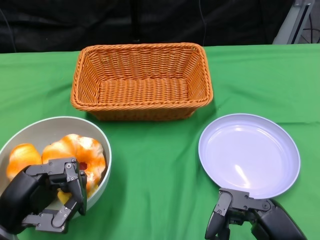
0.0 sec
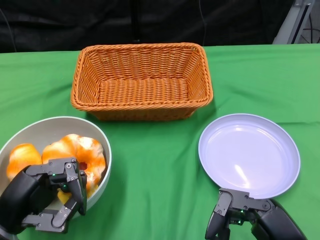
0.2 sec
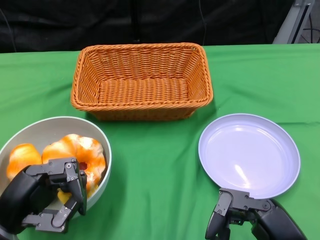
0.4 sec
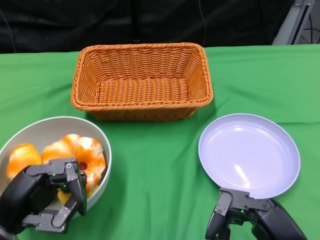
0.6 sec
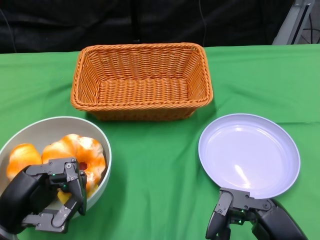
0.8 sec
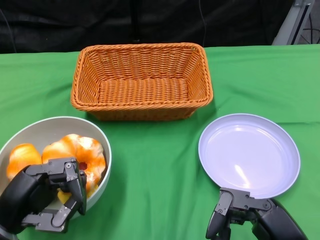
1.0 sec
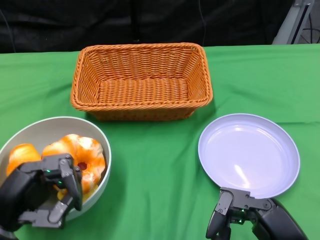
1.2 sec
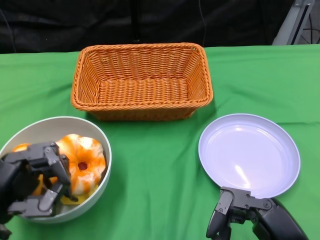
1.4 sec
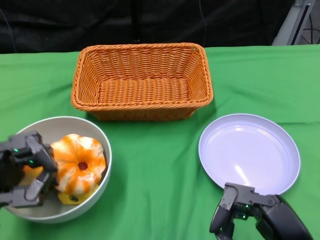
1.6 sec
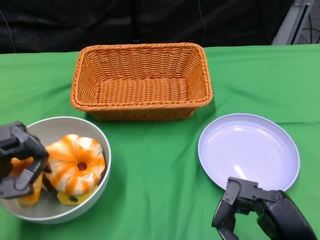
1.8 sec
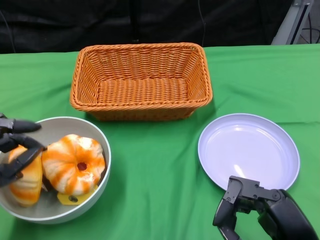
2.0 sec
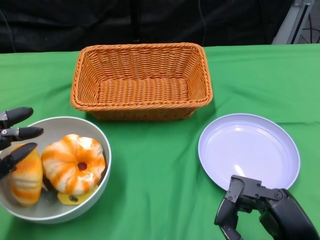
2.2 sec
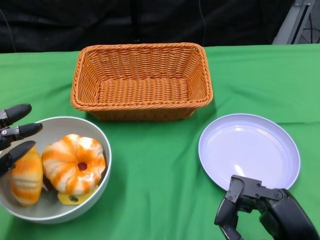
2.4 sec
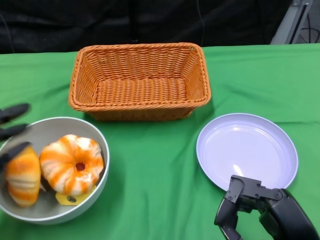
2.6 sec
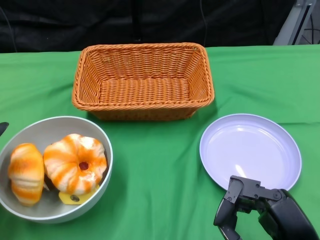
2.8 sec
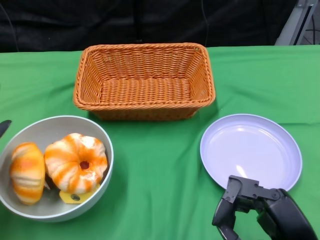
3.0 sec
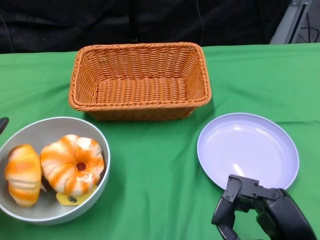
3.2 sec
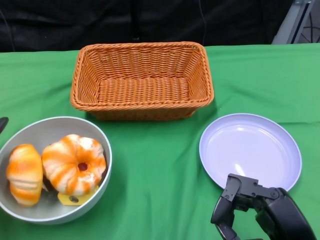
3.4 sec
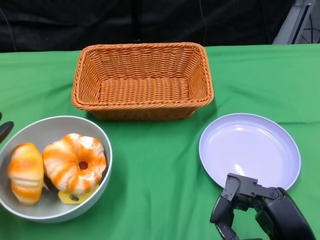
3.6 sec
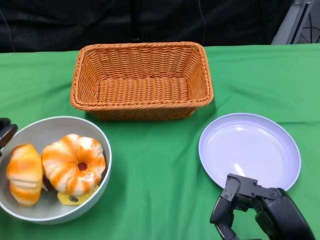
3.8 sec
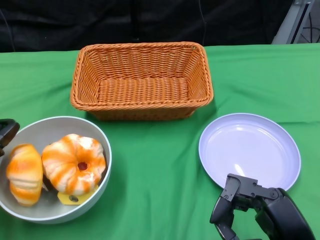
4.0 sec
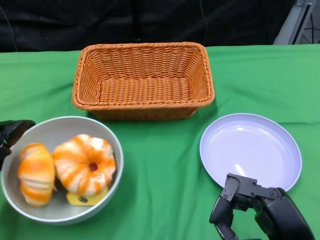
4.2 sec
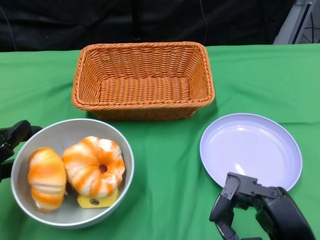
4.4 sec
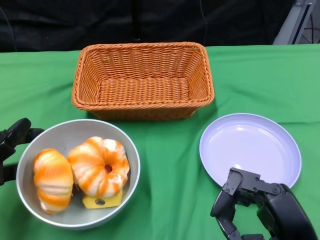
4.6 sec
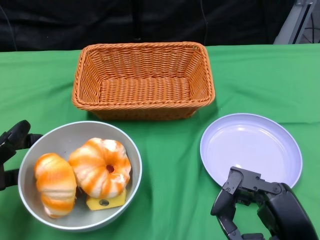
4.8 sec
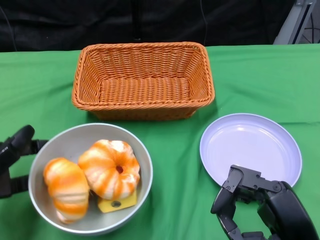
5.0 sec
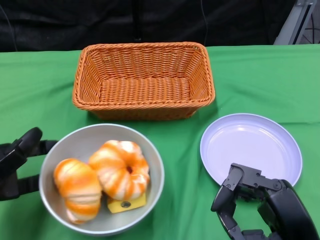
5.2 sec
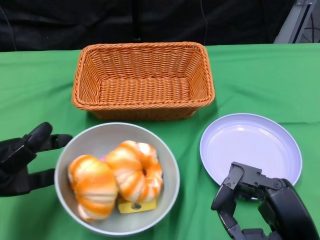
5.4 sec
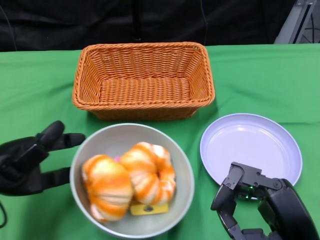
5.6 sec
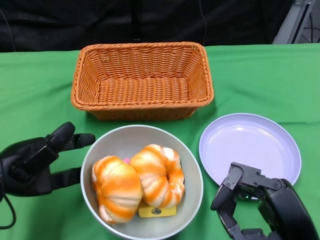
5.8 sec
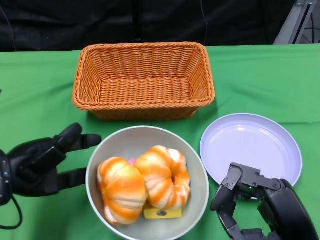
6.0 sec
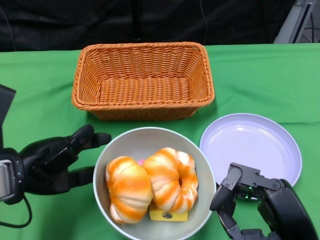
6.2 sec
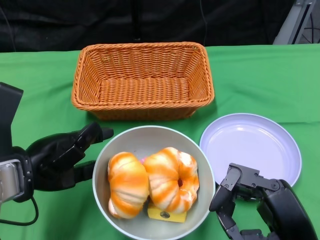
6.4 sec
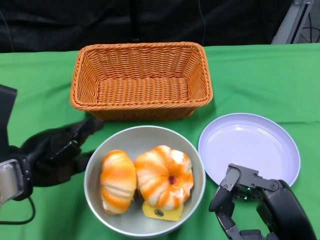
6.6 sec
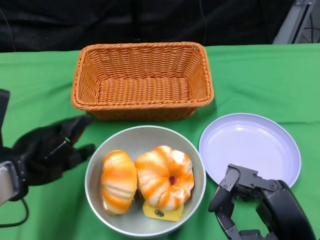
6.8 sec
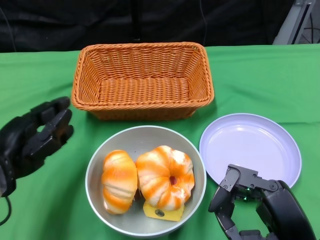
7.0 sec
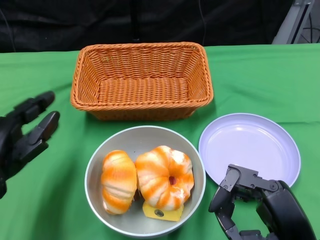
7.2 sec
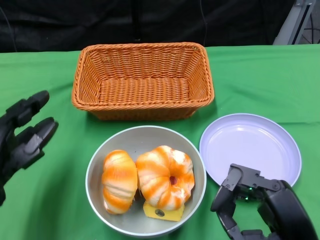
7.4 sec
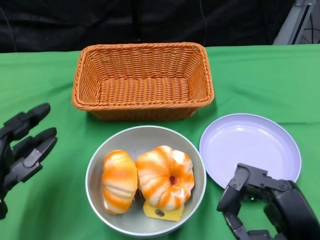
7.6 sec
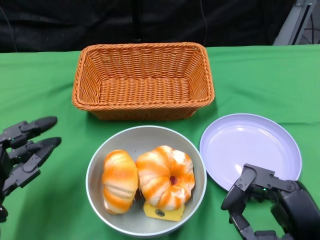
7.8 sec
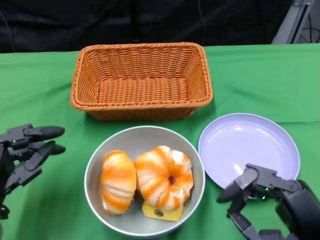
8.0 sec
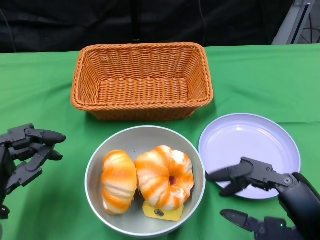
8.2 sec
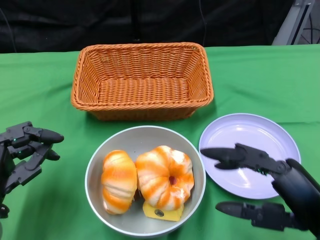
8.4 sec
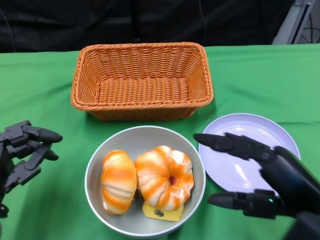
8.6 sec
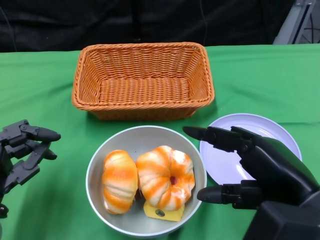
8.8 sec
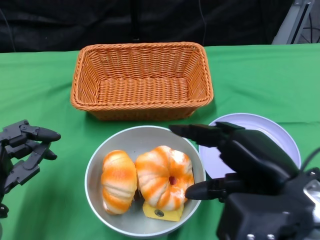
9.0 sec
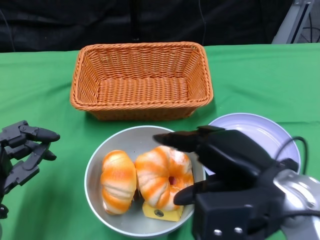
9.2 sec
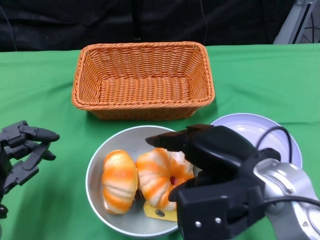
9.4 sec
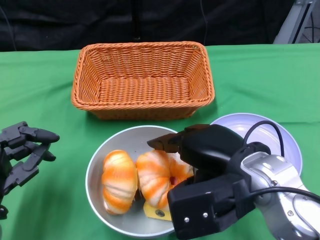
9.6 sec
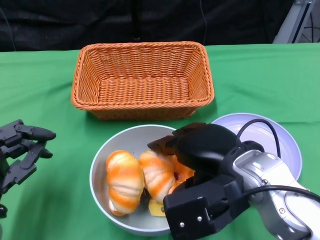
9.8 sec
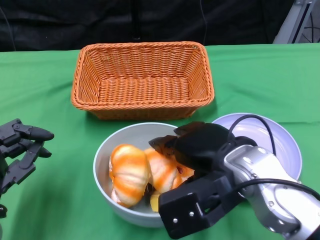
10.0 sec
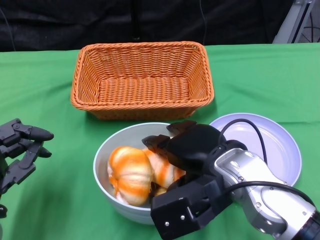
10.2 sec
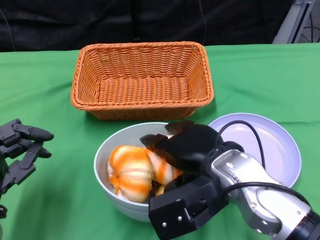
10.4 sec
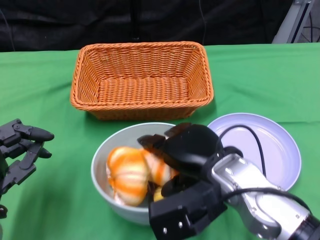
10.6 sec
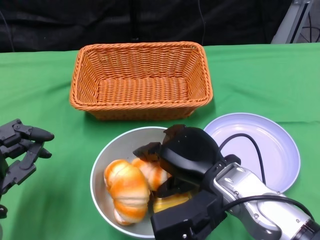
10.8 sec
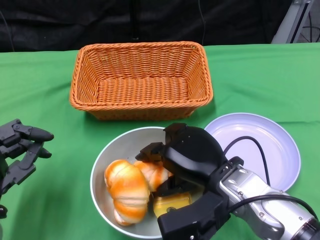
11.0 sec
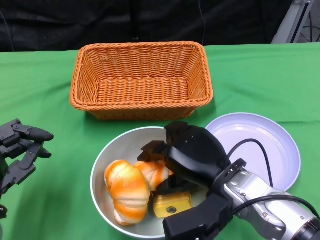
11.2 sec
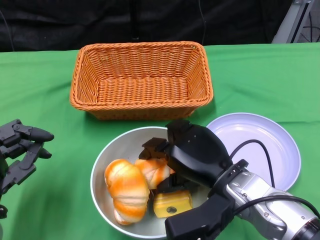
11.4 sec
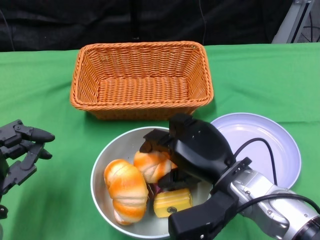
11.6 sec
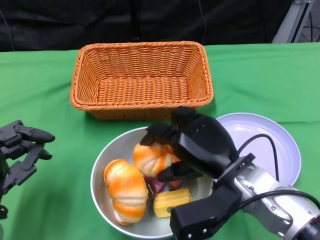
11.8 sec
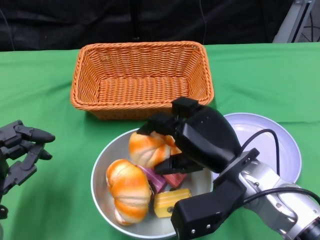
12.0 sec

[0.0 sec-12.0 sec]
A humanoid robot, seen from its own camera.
Step, 0.0 sec to 6.8 sec: Push the bowl to the center of the table using the left gripper.
1.6 sec to 3.0 sec: The left hand ends up some 5 cm from where it was.
4.4 sec to 6.0 sec: The left hand travels to the right by roughly 5 cm.
6.0 sec to 7.6 sec: The left hand moves approximately 5 cm.
7.6 sec to 9.0 sec: The right hand goes about 10 cm upward.
9.0 sec to 10.4 sec: The right hand travels to the left and forward by some 10 cm.

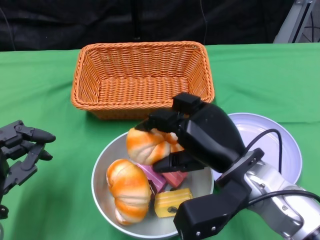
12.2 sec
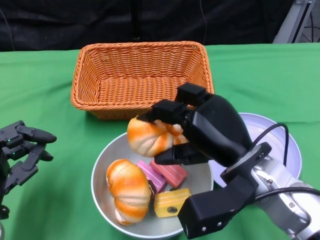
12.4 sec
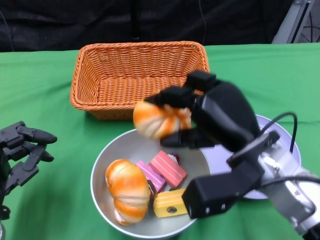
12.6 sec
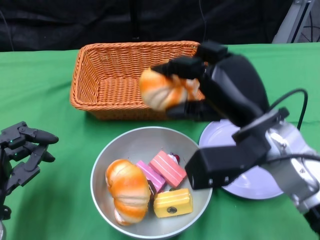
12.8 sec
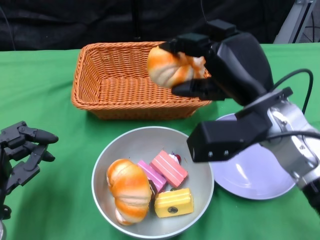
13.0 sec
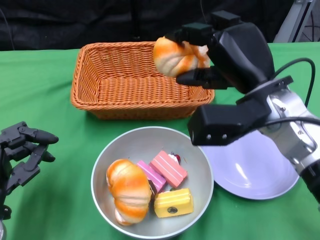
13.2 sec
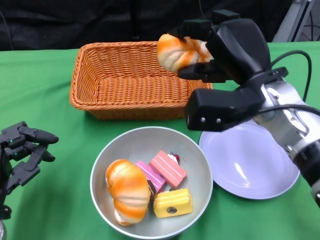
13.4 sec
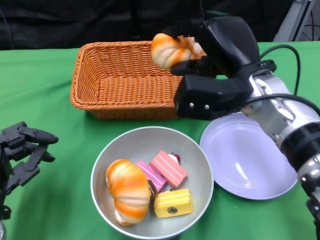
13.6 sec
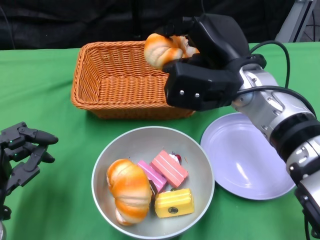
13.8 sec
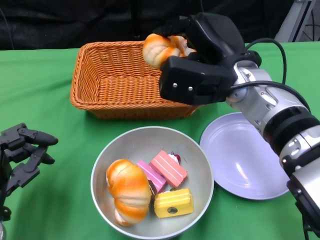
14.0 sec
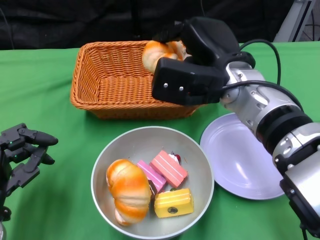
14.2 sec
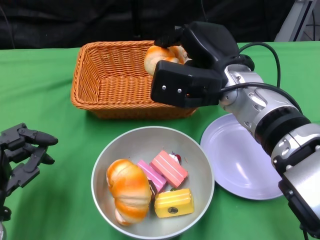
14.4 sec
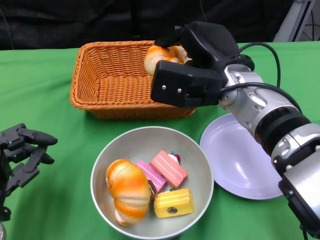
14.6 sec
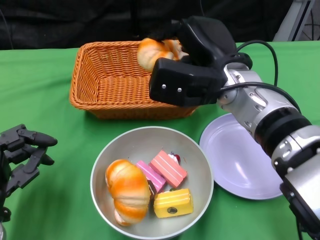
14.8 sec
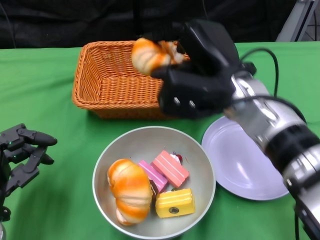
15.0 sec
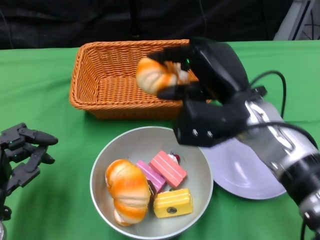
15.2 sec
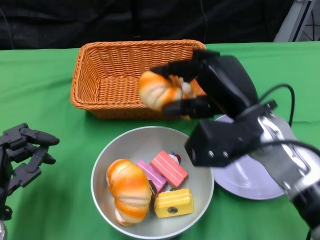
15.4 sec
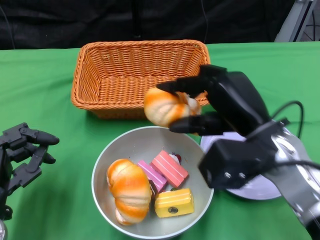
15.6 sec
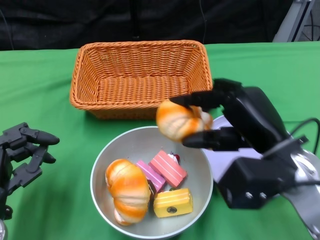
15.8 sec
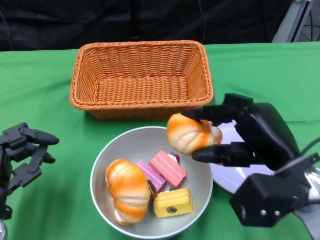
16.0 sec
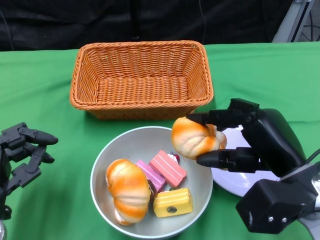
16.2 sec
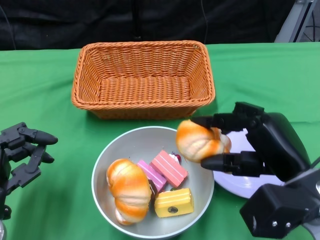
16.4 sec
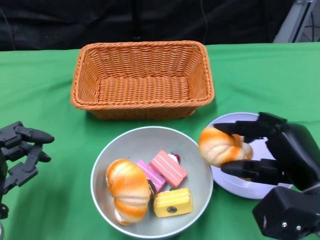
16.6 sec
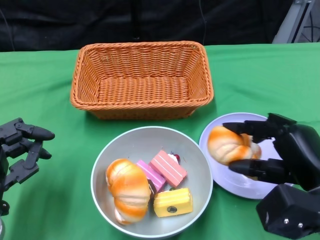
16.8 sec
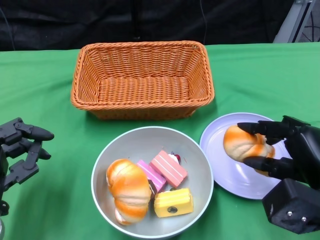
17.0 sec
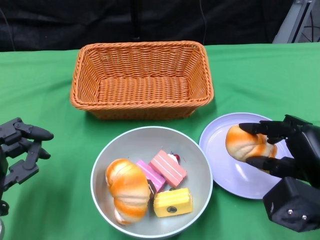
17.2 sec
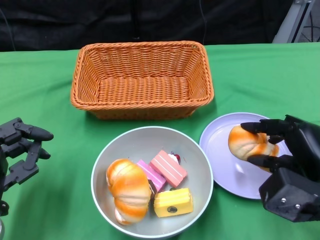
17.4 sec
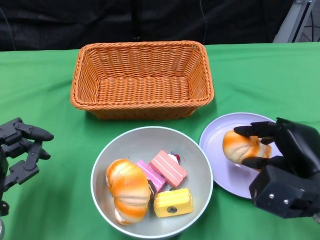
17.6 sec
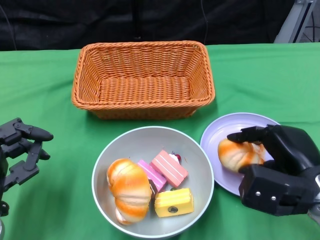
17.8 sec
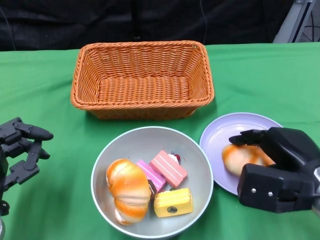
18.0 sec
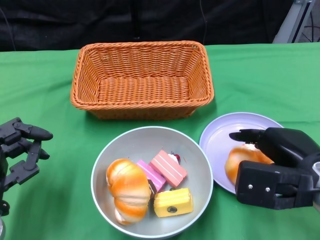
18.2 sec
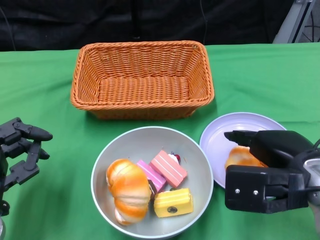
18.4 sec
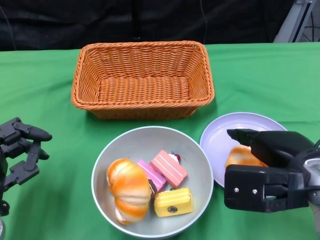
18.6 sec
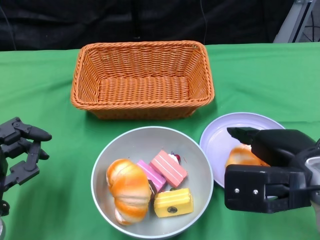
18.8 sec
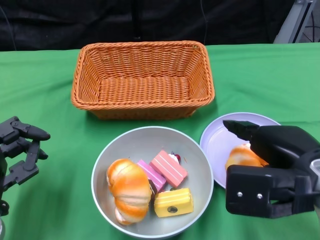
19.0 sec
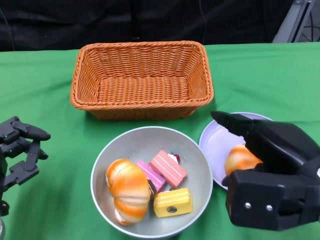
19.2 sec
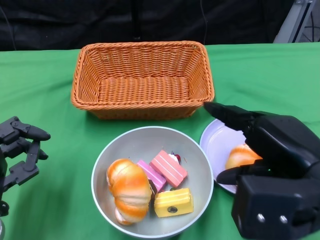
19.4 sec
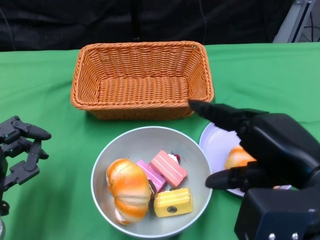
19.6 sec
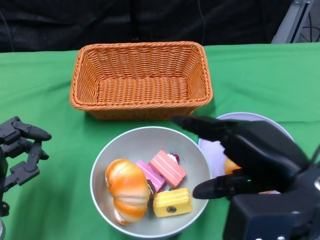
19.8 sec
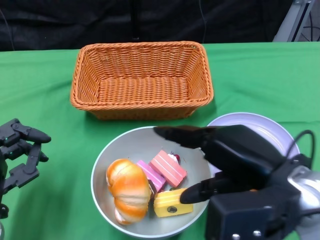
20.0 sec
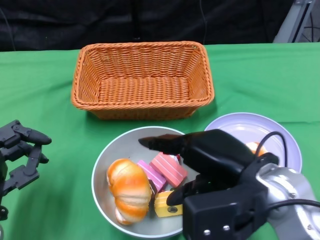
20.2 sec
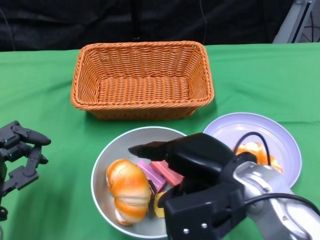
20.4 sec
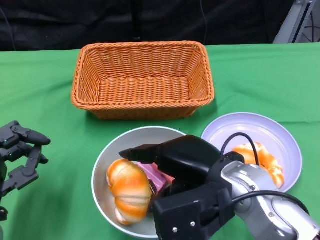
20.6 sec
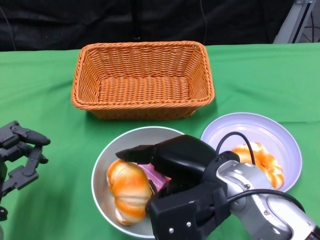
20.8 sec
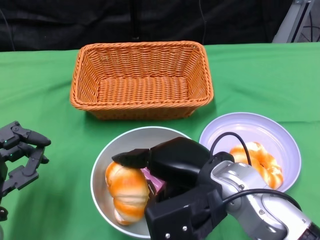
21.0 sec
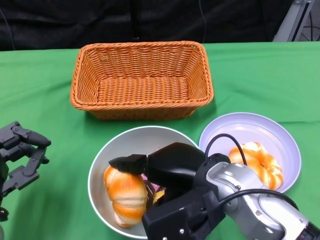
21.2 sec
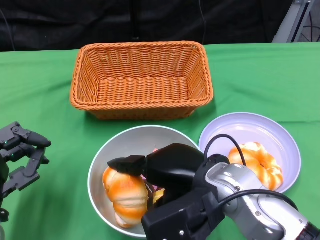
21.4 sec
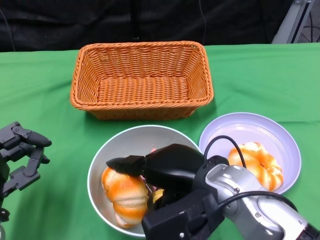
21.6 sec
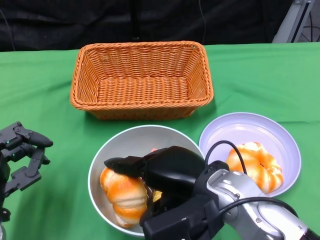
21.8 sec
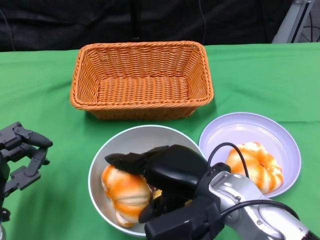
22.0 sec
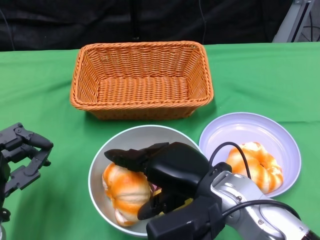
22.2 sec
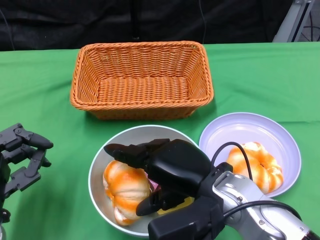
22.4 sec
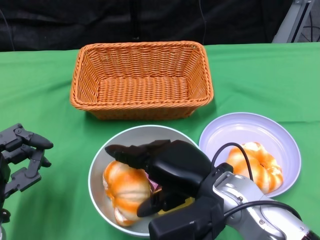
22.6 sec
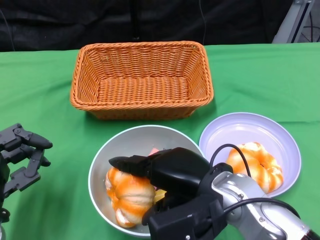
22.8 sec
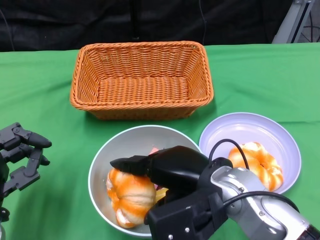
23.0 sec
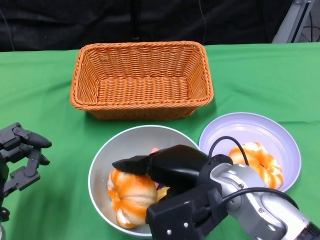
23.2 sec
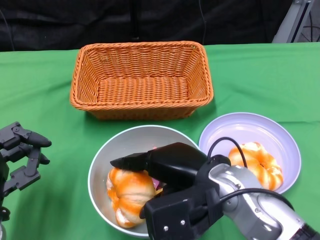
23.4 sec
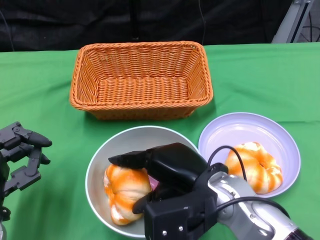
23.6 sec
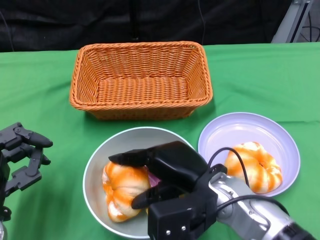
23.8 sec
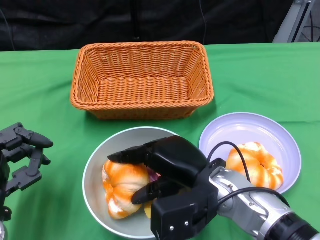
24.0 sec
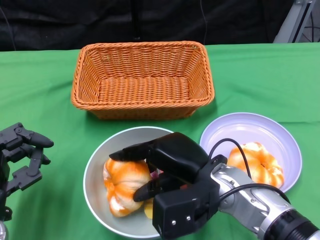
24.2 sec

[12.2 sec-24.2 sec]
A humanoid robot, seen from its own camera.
Step, 12.2 sec to 18.4 sec: Pick up the bread with the right gripper and place it on the plate.
12.2 sec to 13.8 sec: The right hand travels forward and upward by roughly 10 cm.
15.2 sec to 16.6 sec: The right hand is displaced backward and to the right by approximately 15 cm.
18.2 sec to 19.8 sec: The right hand goes some 10 cm upward and backward.
19.8 sec to 21.2 sec: The right hand is displaced to the left, downward and forward by roughly 15 cm.
21.2 sec to 22.6 sec: The hands stay close to where they were, moving slightly.
22.6 sec to 24.2 sec: The hands move only a little.
